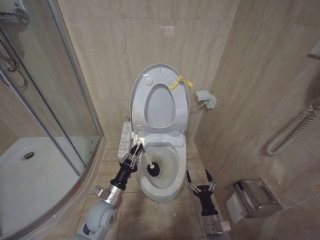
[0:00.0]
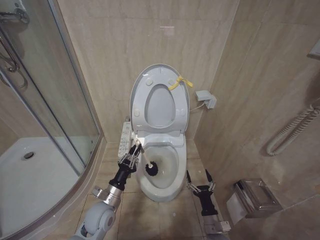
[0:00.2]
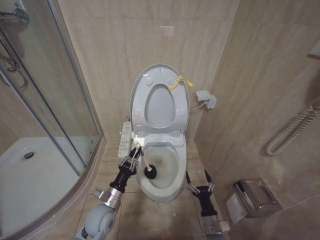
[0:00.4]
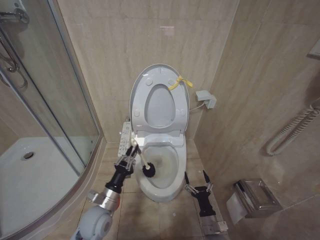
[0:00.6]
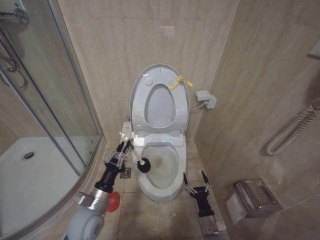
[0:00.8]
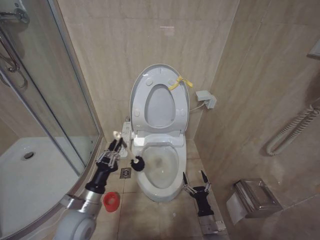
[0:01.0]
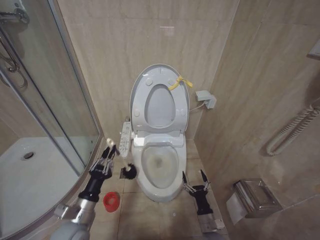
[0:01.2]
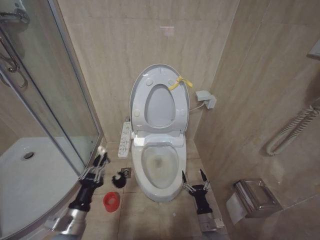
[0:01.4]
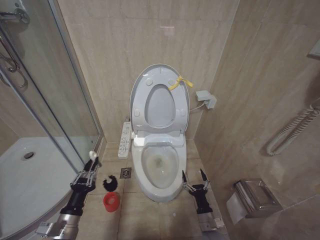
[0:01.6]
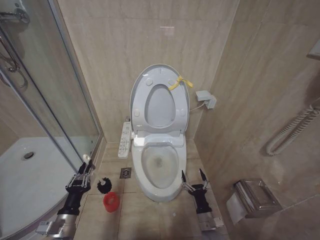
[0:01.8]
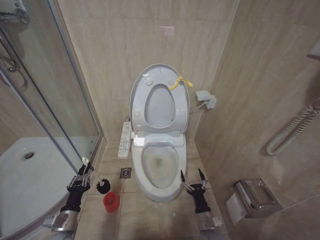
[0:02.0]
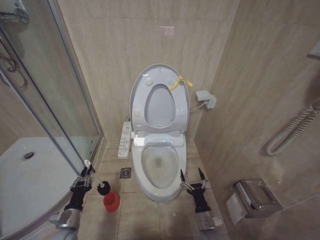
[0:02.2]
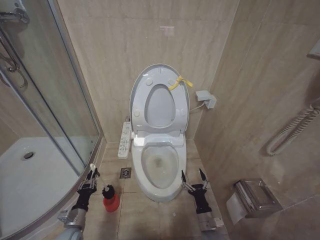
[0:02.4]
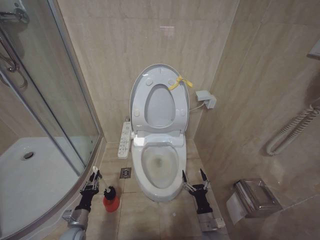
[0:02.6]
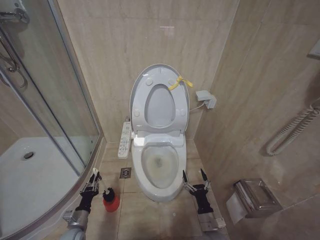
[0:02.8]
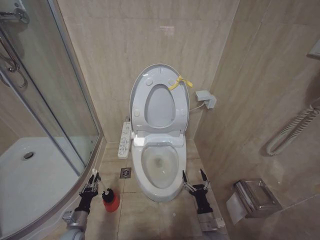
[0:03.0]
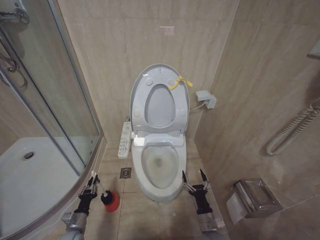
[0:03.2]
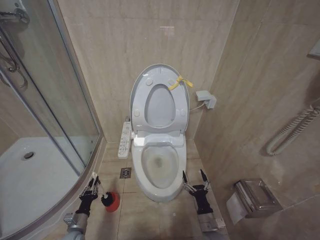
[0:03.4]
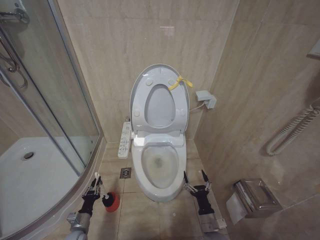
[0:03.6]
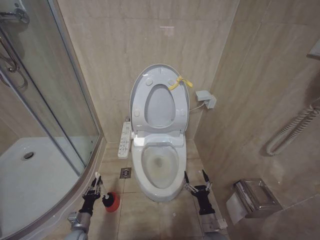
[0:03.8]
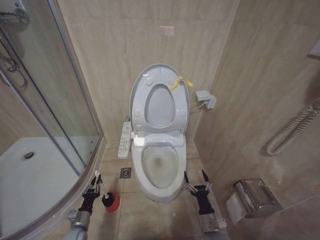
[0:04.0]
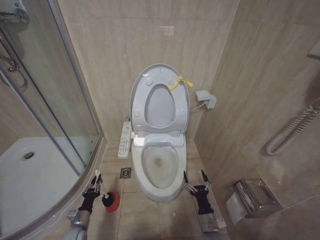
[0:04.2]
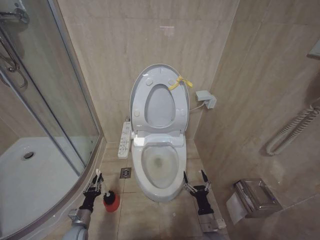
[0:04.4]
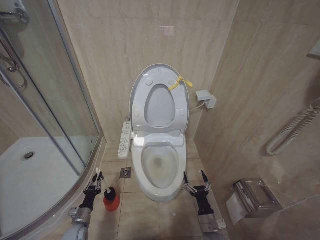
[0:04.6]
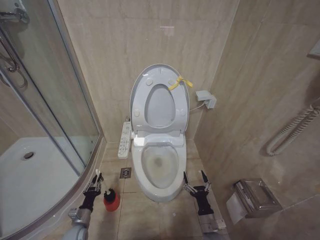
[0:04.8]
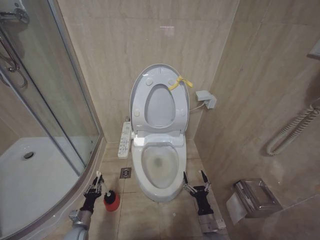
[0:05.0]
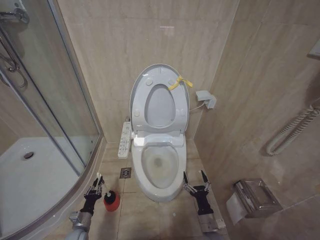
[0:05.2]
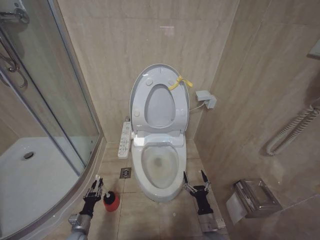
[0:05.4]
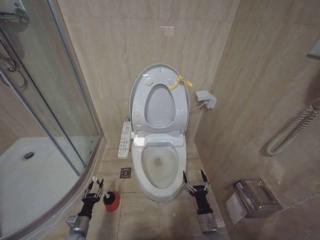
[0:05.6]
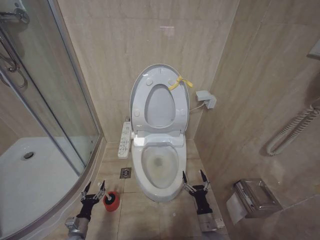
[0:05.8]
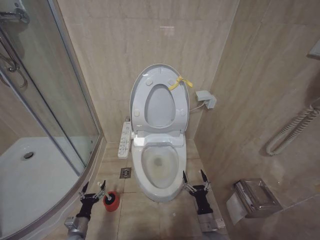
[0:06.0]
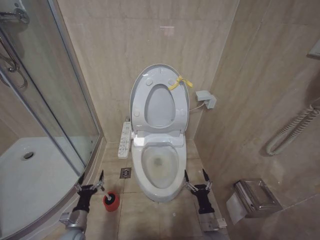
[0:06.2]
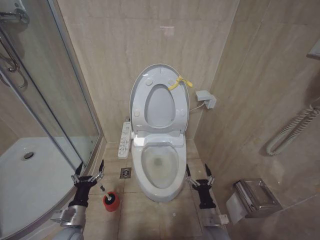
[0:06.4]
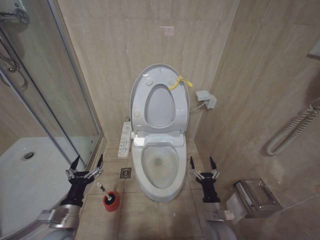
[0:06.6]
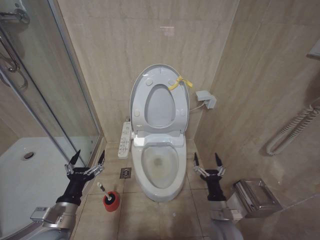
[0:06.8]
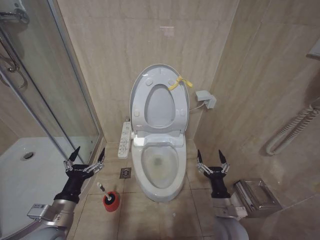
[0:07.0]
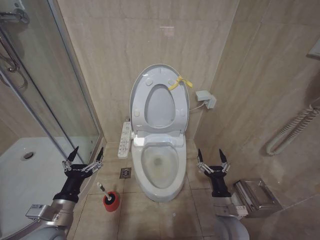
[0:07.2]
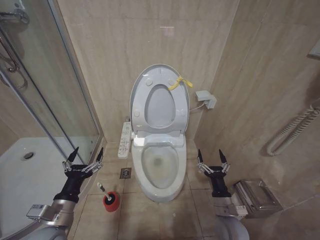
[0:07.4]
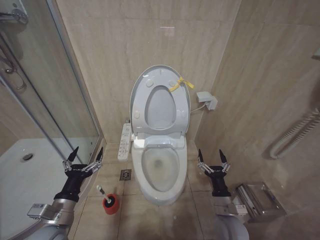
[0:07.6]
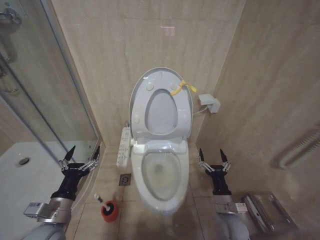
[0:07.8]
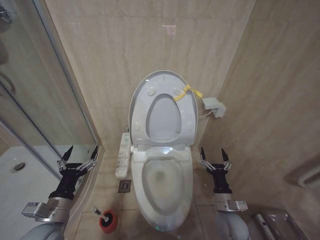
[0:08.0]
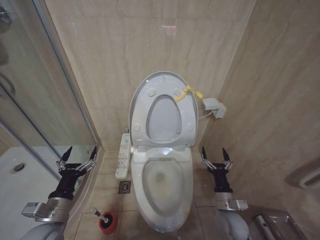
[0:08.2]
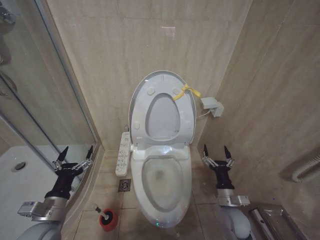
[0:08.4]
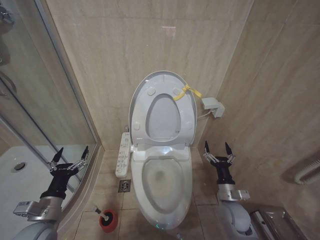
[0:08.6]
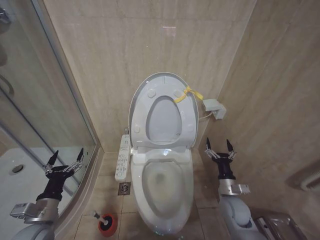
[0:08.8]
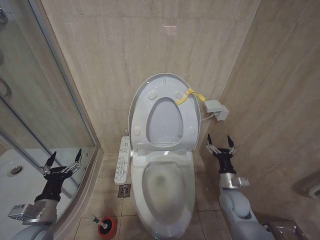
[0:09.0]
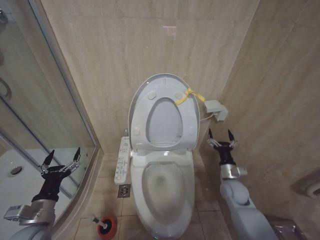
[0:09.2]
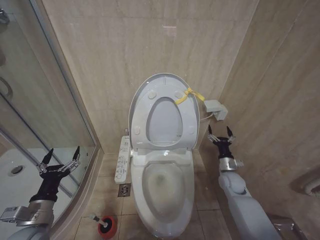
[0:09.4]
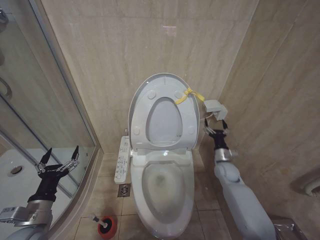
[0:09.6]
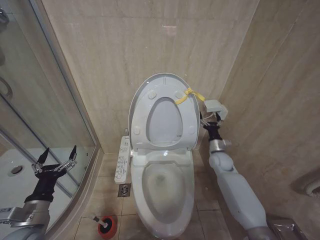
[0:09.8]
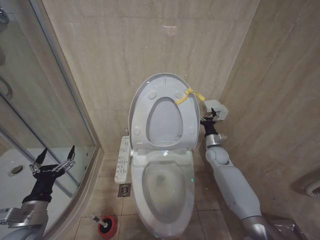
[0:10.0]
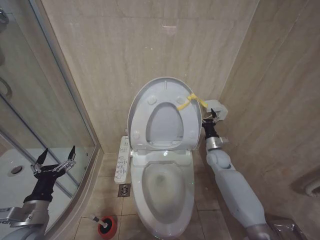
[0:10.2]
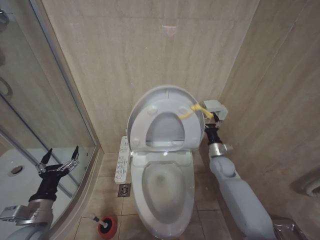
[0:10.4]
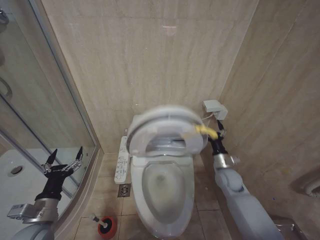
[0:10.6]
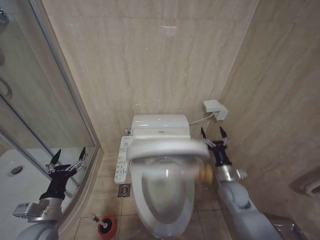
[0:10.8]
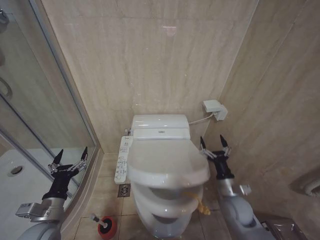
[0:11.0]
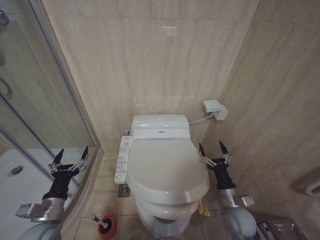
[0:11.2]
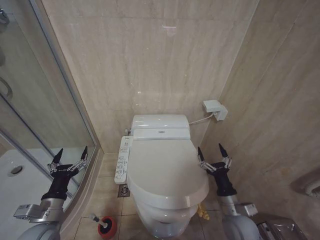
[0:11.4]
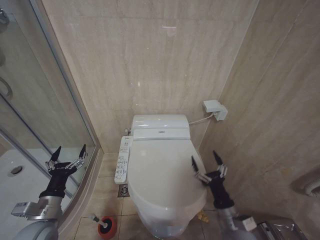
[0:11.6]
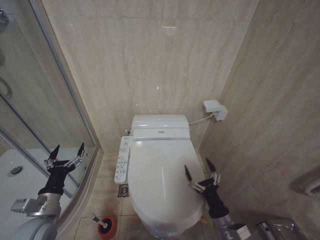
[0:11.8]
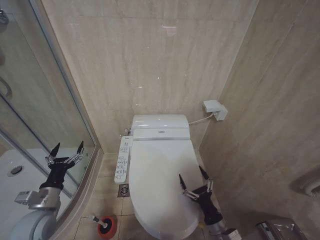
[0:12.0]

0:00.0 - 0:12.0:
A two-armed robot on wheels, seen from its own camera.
Task of the whole recording: Open the toilet lid, clean the toilet bowl with a toilet brush, close the toilet lid, and flush.
0:00.0 - 0:01.6: The left gripper travels backward and to the left by about 15 cm.
0:01.6 - 0:03.0: The left gripper heads downward, covering some 15 cm.
0:03.0 - 0:04.4: The grippers make only small movements.
0:04.4 - 0:06.0: The left gripper opens up.
0:06.0 - 0:07.6: The right gripper moves upward, about 10 cm. Meanwhile the left gripper travels upward by some 30 cm.
0:07.6 - 0:09.0: The right gripper moves forward and to the right, about 10 cm; the left gripper shifts about 5 cm to the left.
0:09.0 - 0:10.4: The right gripper heads forward, covering about 15 cm.
0:10.4 - 0:12.0: The right gripper travels backward by about 30 cm.

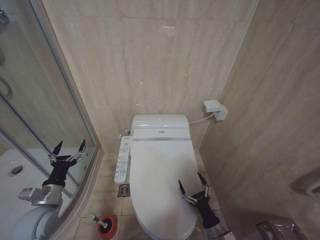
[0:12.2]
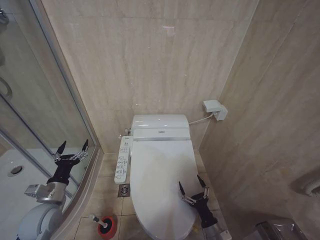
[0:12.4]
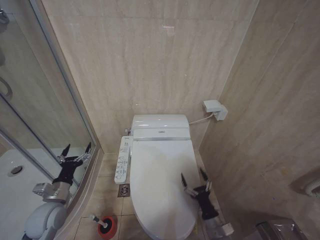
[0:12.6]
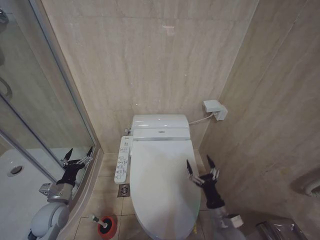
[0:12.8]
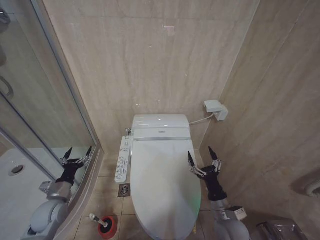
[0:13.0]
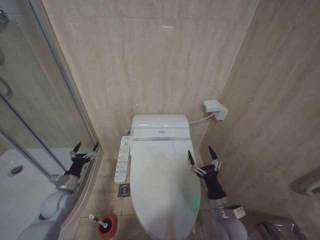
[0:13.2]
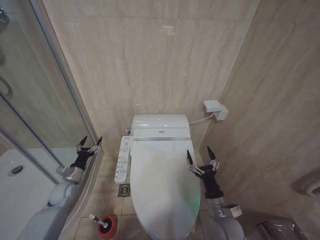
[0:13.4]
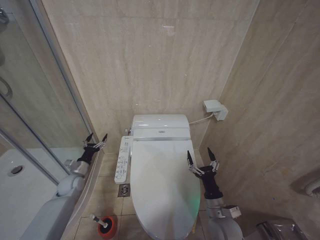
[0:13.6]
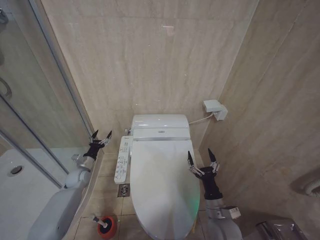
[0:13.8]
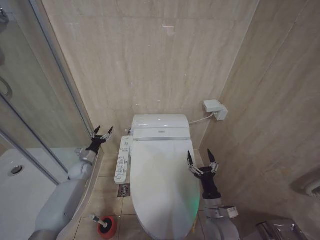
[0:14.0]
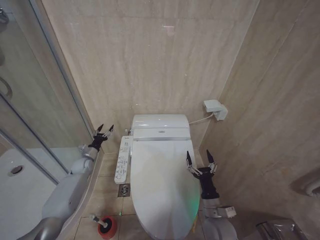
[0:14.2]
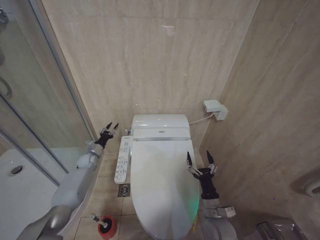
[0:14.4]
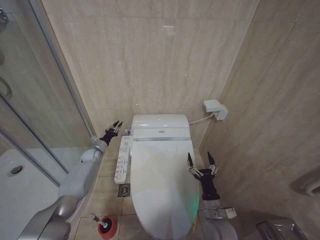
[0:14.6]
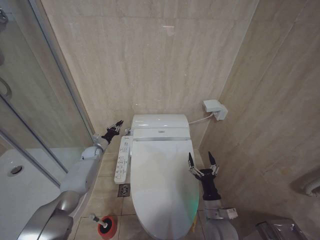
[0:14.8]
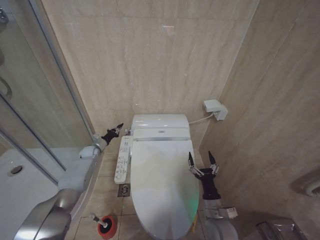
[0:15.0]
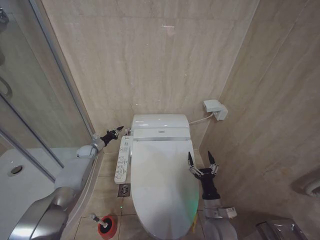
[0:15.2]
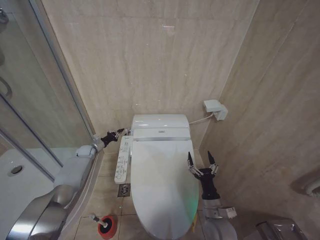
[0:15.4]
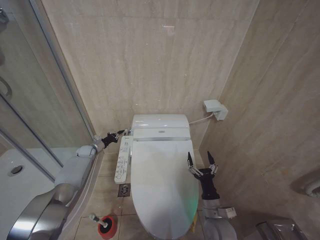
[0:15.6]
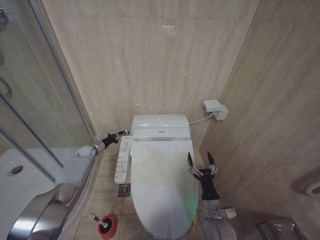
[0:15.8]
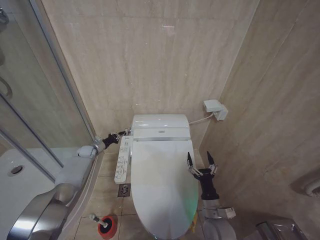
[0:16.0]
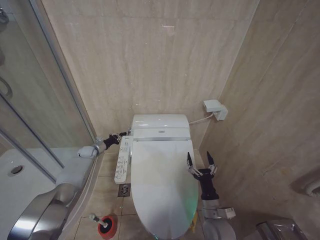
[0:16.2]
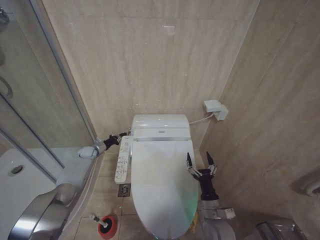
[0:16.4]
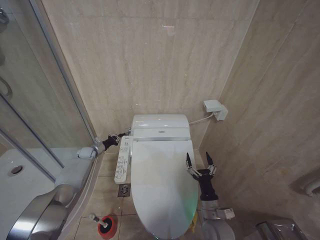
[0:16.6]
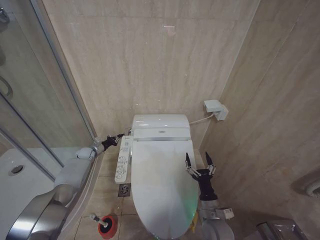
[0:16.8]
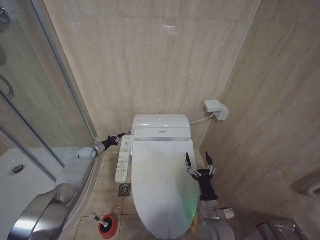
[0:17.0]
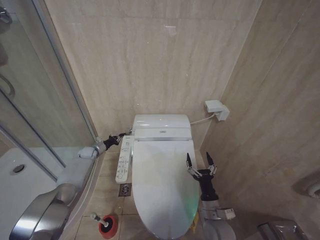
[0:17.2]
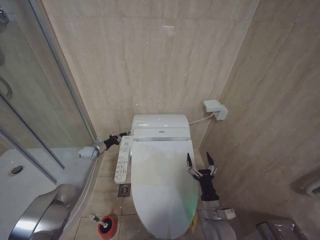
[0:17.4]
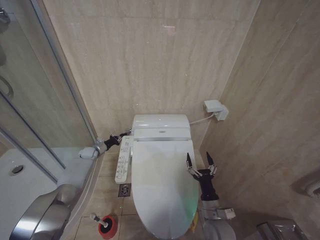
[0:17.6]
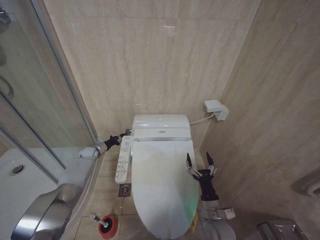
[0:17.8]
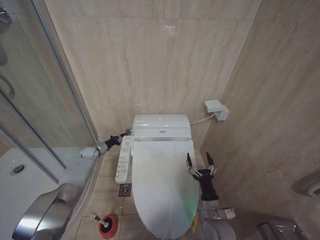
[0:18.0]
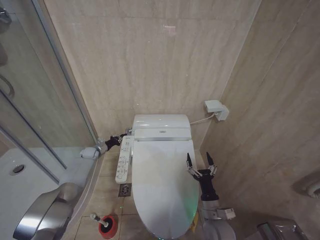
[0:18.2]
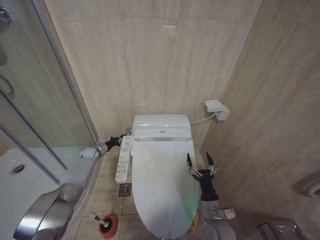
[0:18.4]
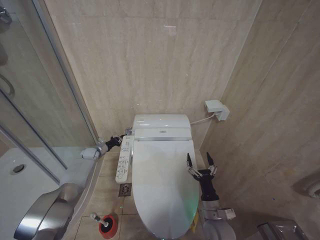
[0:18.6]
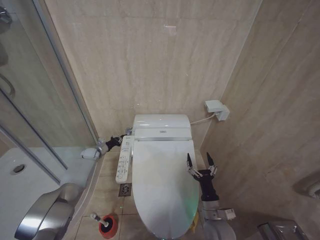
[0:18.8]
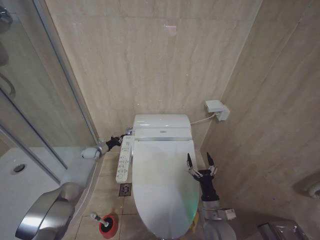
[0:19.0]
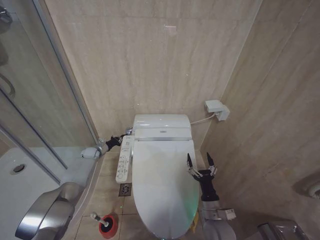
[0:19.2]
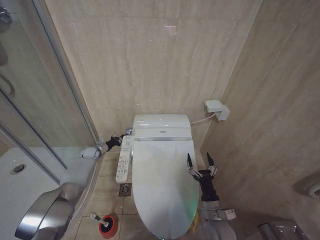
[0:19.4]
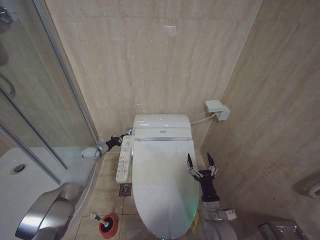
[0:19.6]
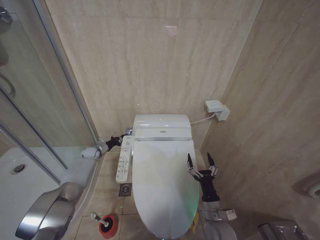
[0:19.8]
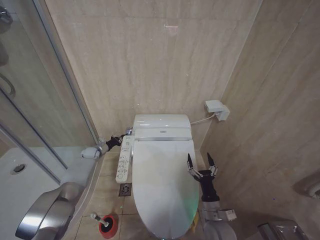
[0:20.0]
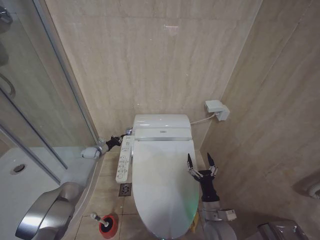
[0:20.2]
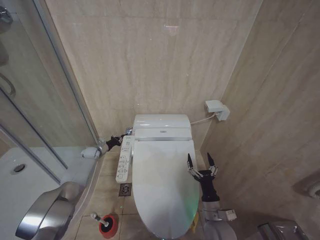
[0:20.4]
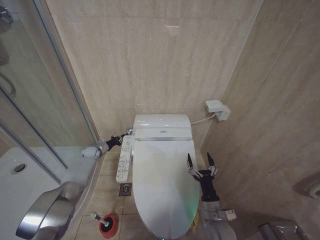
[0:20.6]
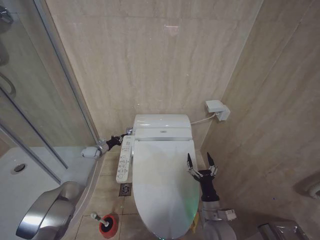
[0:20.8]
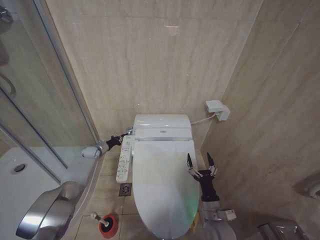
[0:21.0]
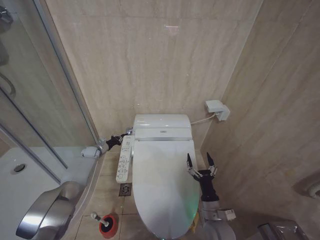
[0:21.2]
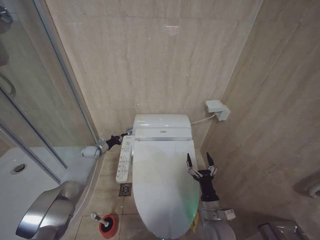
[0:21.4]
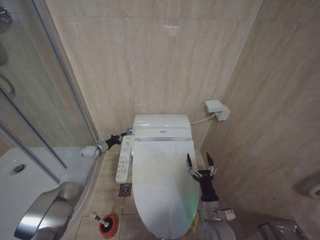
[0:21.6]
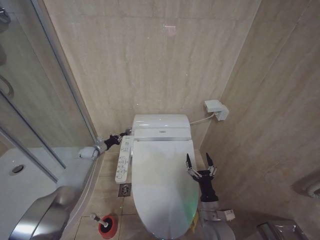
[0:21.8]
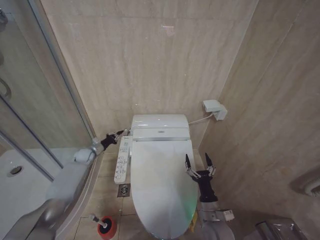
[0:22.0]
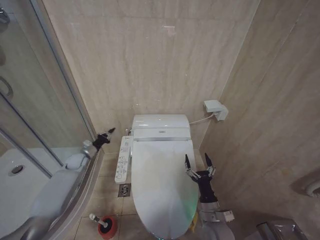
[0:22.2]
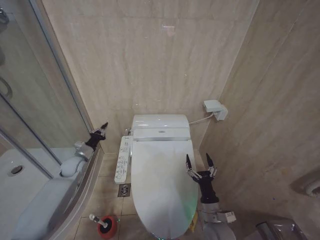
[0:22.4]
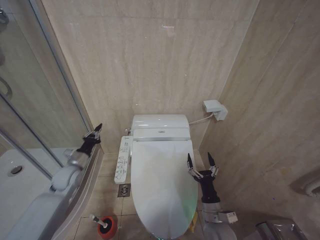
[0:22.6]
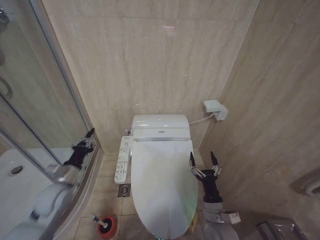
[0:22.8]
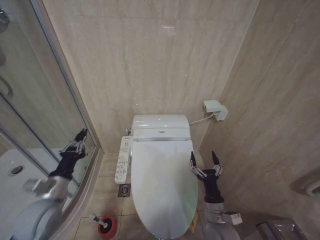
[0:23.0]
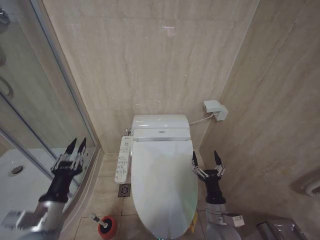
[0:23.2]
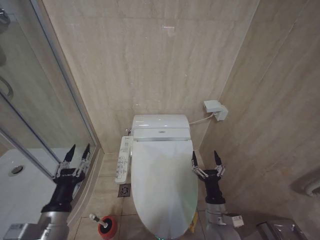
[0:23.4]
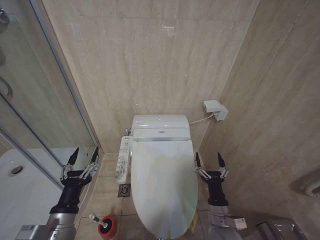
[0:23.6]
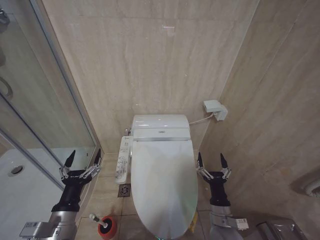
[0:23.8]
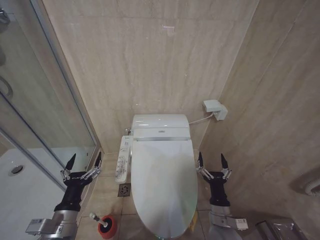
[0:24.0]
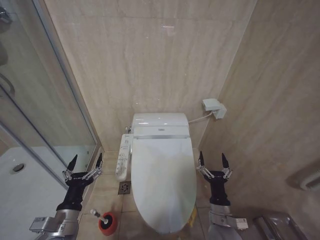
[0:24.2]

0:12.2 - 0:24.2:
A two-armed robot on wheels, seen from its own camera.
Task of the whole recording: Open the toilet lid, clean the toilet bowl with a toilet brush, close the toilet lid, and flush.
0:12.2 - 0:13.8: The left gripper moves forward and downward, some 20 cm. Meanwhile the right gripper goes approximately 10 cm upward and forward.
0:13.8 - 0:15.2: The left gripper shifts about 15 cm forward, and closes.
0:15.2 - 0:16.6: The grippers stay close to where they were, moving slightly.
0:16.6 - 0:18.2: The two grippers keep their place.
0:18.2 - 0:21.2: The two grippers keep their place.
0:21.2 - 0:22.6: The left gripper heads backward and upward, covering approximately 20 cm.
0:22.6 - 0:24.2: The left gripper shifts about 25 cm backward, and opens.
